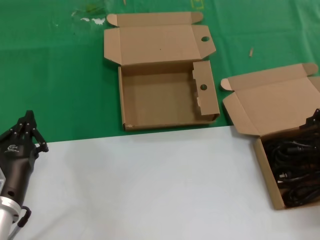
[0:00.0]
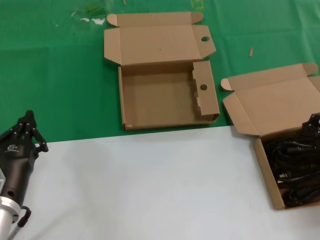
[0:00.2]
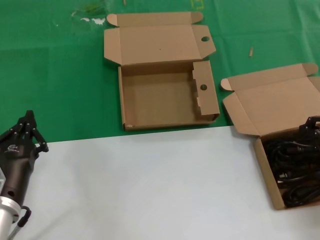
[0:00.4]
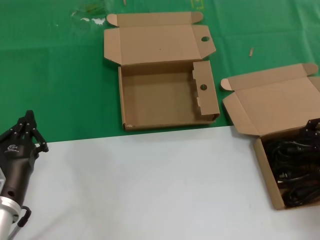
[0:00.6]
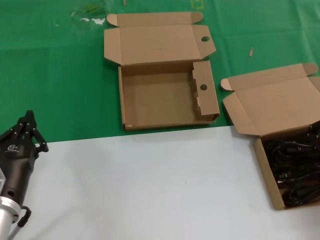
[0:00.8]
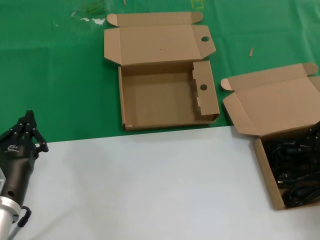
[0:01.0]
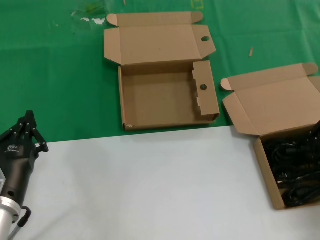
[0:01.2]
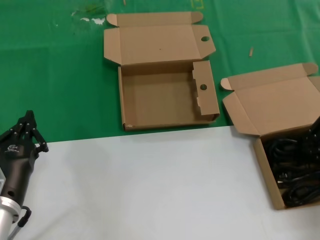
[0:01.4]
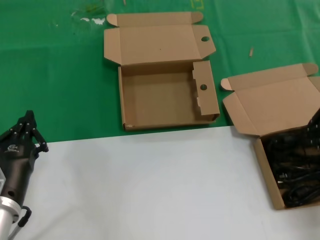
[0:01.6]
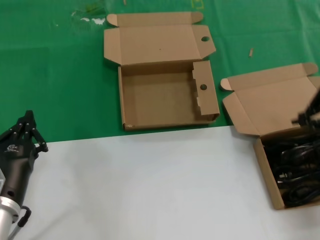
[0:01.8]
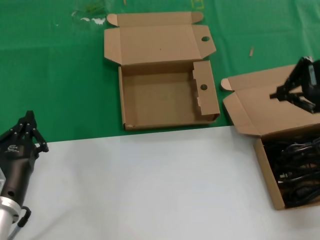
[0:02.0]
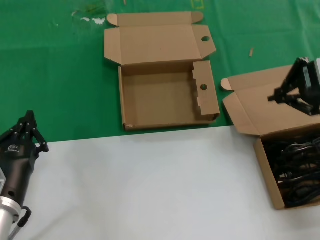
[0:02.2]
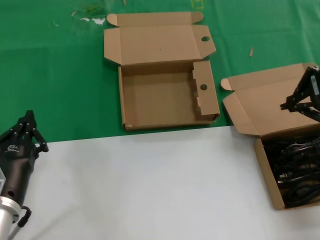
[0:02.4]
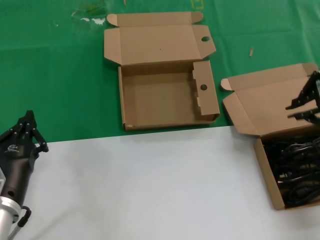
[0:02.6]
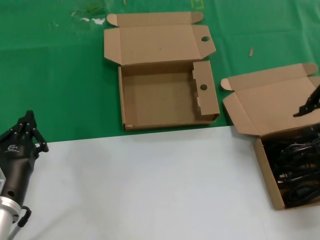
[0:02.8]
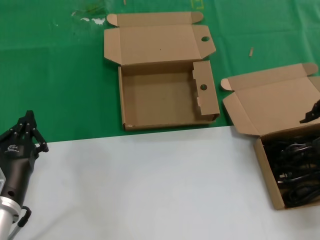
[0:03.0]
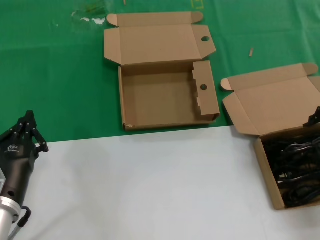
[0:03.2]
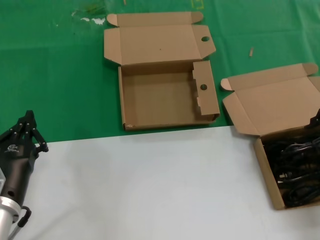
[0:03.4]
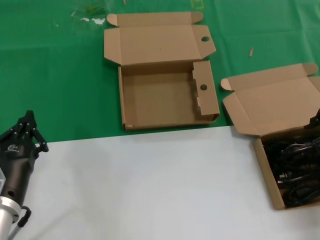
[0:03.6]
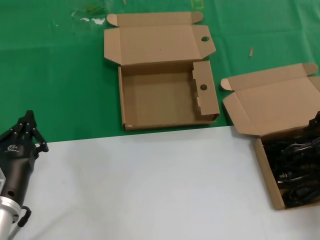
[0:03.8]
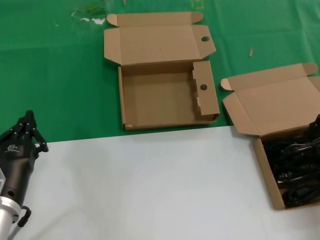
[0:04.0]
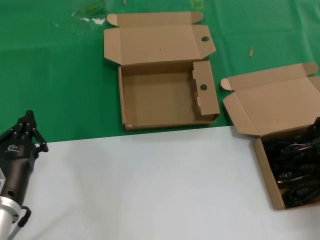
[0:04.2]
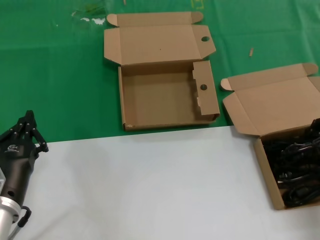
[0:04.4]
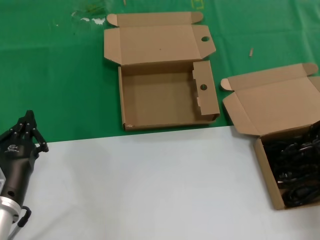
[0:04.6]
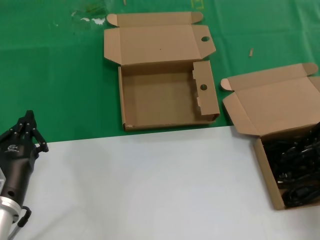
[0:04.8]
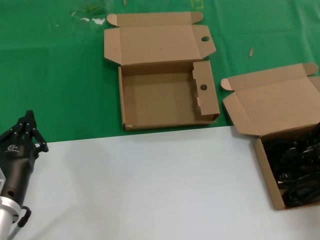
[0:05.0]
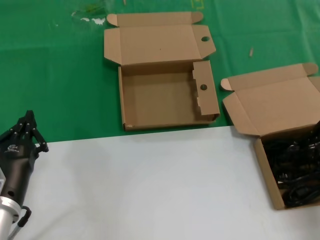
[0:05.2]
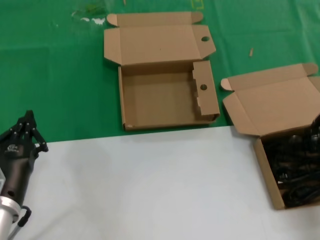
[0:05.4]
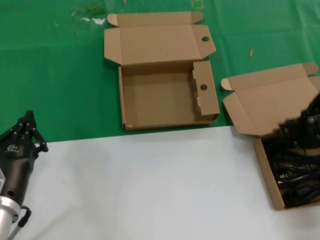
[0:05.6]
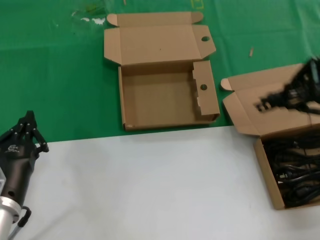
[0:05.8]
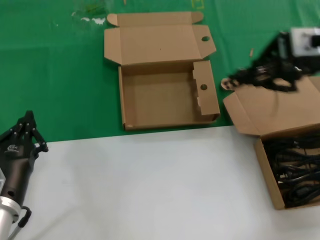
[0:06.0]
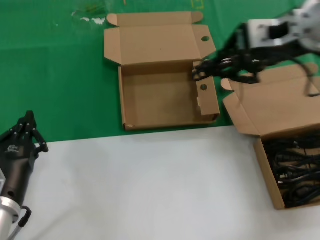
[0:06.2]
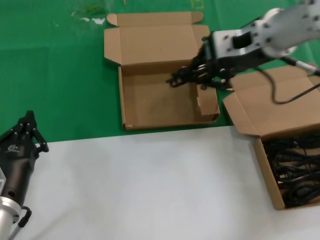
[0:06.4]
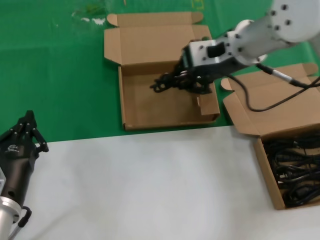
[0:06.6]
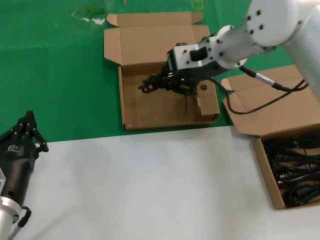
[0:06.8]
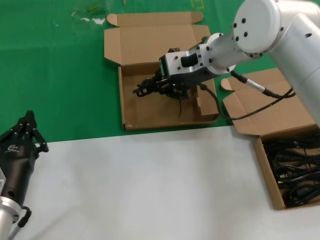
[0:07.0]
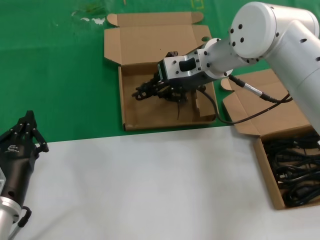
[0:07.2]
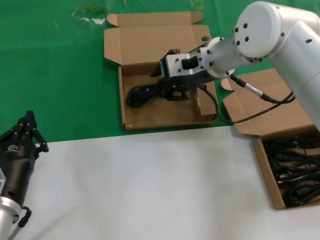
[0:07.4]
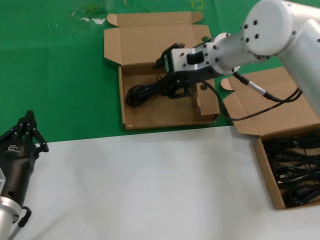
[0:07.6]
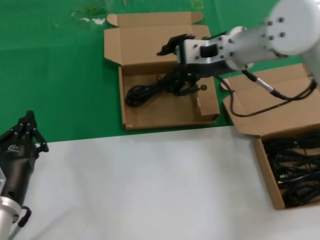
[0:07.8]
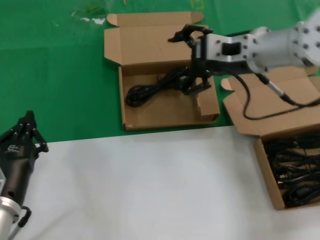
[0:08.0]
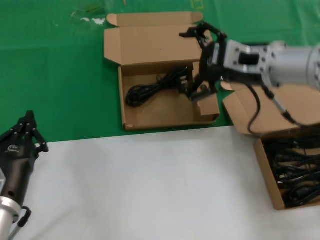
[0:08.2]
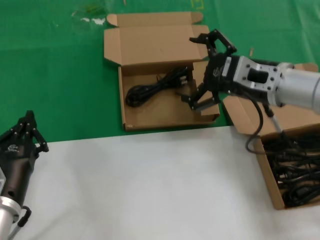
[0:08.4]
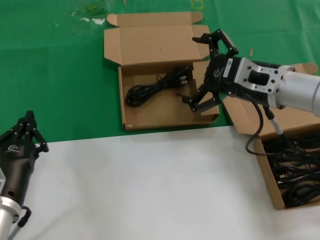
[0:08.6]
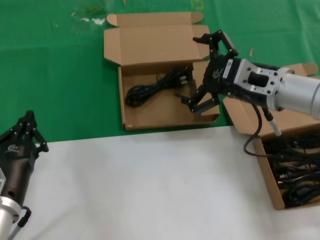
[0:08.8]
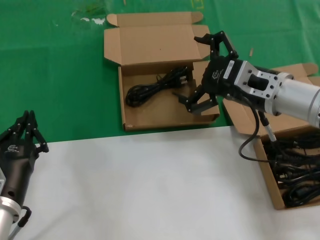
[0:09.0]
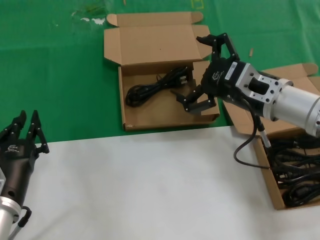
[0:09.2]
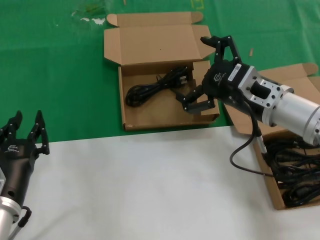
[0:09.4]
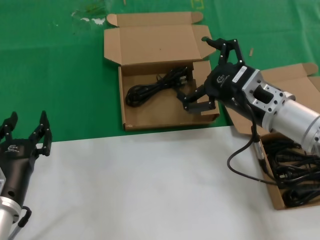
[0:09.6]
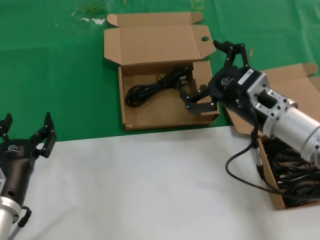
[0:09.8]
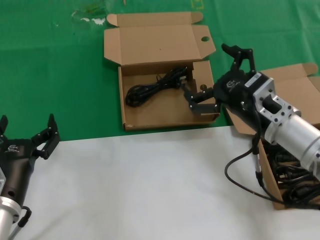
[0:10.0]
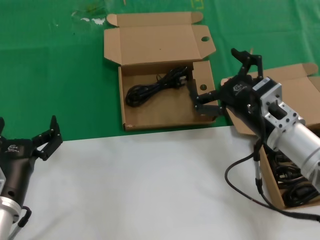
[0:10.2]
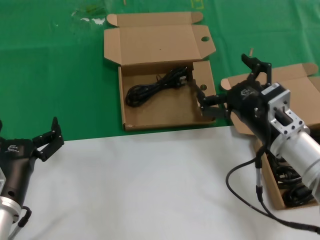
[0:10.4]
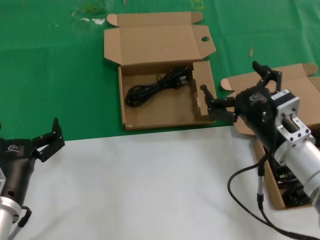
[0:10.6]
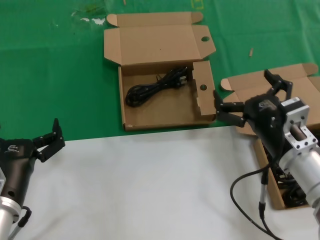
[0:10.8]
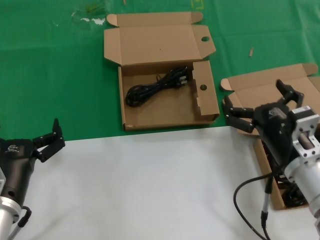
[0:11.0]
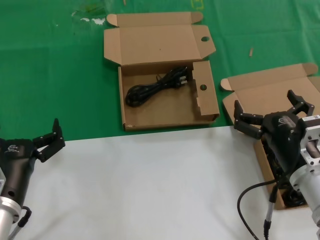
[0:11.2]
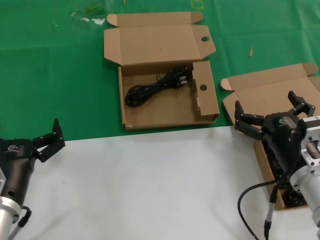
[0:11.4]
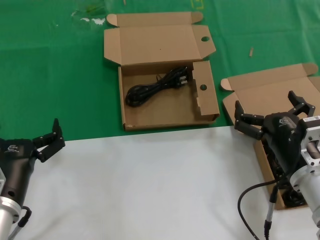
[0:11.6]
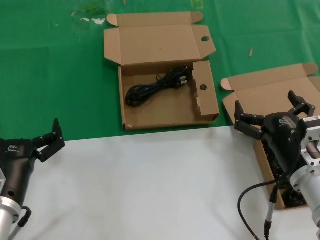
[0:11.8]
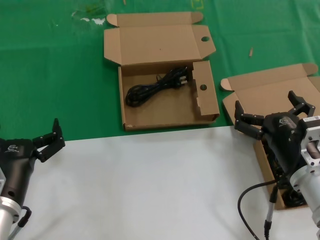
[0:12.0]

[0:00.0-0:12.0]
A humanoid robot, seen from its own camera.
Task of the whole recording: take the parts from the box containing them and put them into an empty box.
Step, 0:00.0 to 0:04.6: Grasp the data cable.
Step, 0:04.8 to 0:07.8: Place the data cable in the another box.
0:01.6 to 0:03.0: The right hand is displaced upward by some 5 cm.
0:03.0 to 0:04.4: The right hand travels downward by approximately 10 cm.
0:04.4 to 0:06.0: The right hand goes approximately 15 cm upward and to the left.
0:06.0 to 0:07.6: The right hand shifts approximately 20 cm to the left, forward and downward.
0:07.6 to 0:09.0: The right hand shifts about 15 cm backward, to the right and downward.
0:09.0 to 0:10.4: The right hand is displaced downward and backward by about 10 cm.
0:10.4 to 0:12.0: The right hand travels backward and downward by approximately 5 cm.

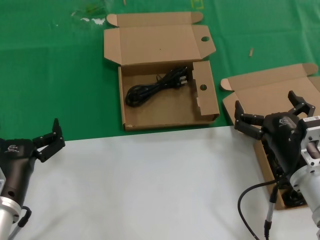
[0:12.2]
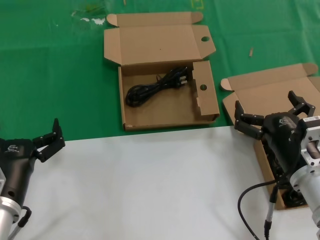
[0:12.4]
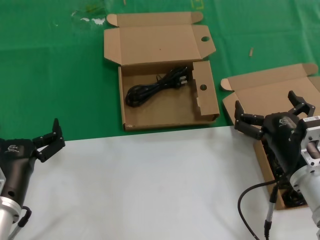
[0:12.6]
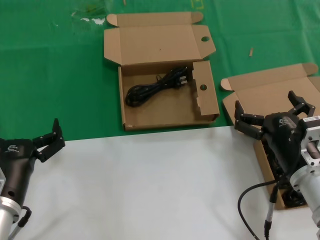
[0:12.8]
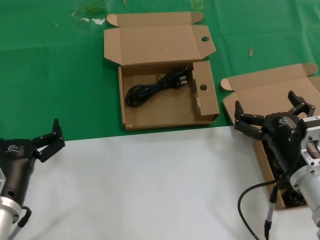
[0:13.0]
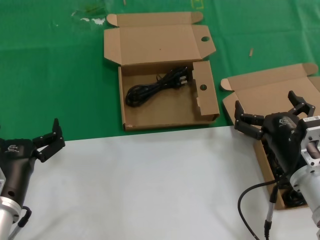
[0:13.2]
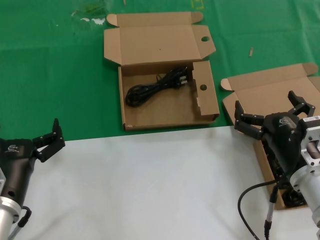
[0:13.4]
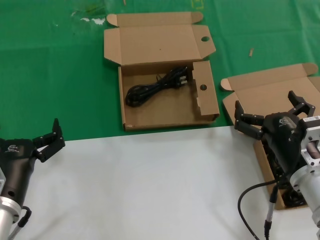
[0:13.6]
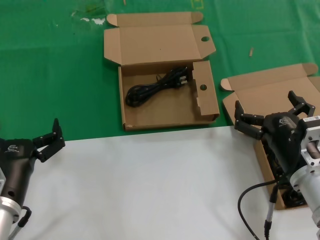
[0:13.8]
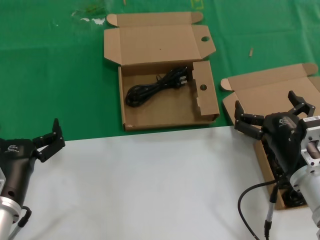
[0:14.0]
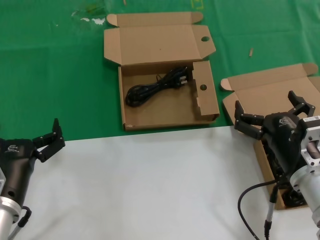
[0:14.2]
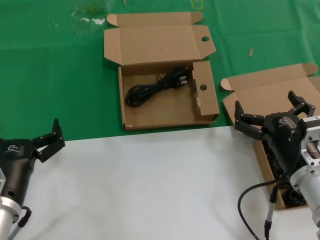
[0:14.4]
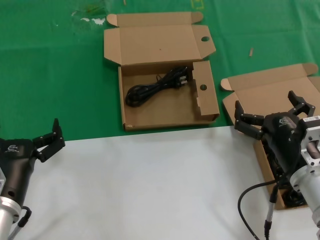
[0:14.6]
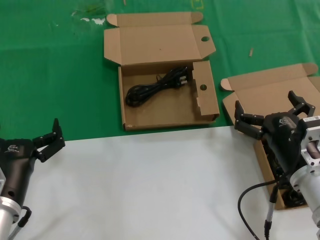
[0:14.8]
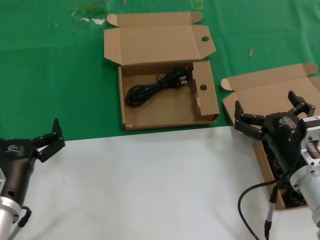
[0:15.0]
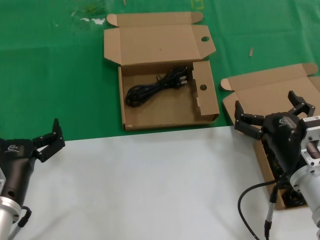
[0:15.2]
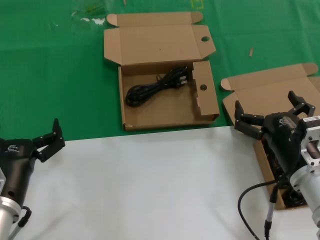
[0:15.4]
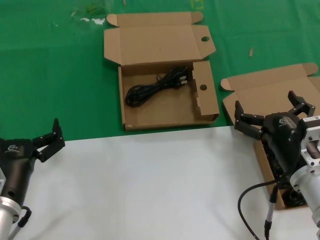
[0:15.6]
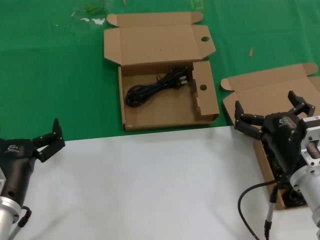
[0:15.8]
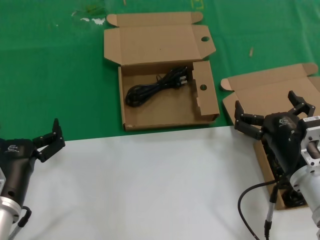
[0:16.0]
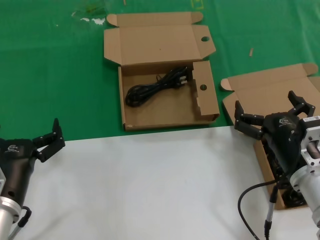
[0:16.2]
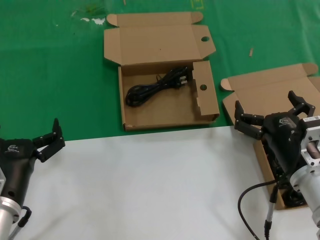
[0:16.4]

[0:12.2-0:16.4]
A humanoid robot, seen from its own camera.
Task of the whole recording: take the parts from the box containing them and put them into an empty box.
0:12.2 to 0:16.4: The two hands keep their place.

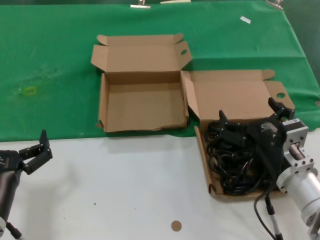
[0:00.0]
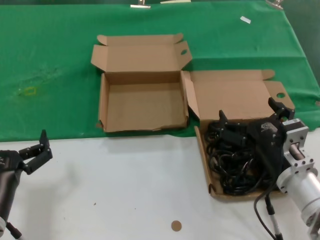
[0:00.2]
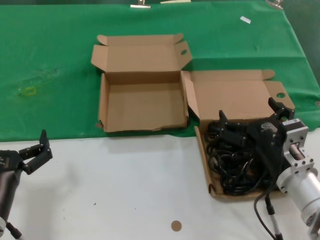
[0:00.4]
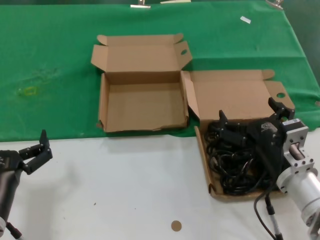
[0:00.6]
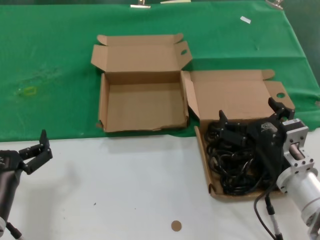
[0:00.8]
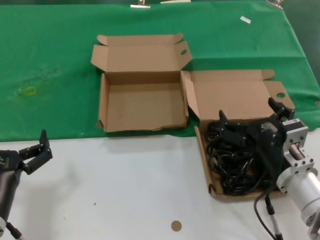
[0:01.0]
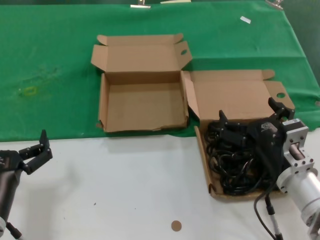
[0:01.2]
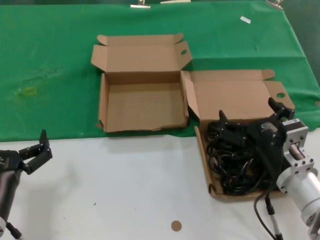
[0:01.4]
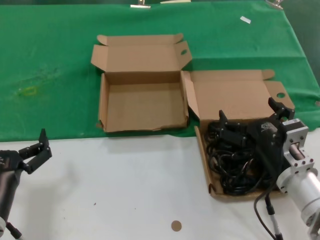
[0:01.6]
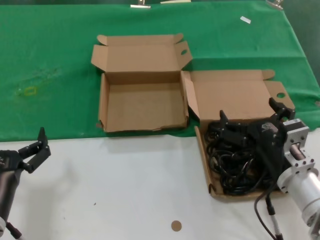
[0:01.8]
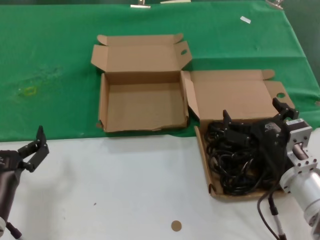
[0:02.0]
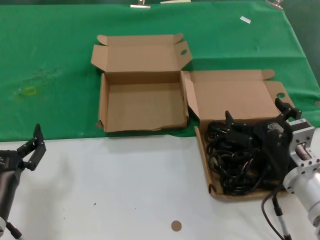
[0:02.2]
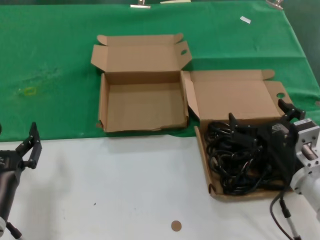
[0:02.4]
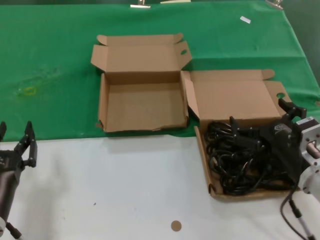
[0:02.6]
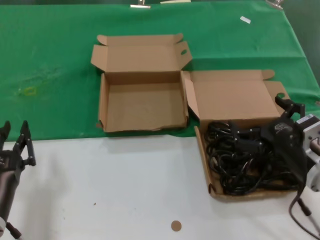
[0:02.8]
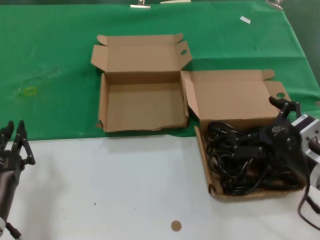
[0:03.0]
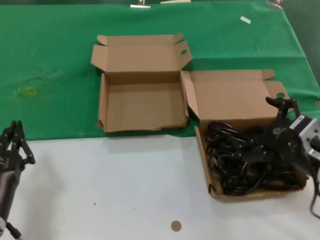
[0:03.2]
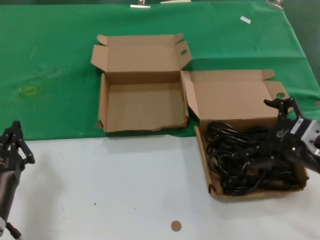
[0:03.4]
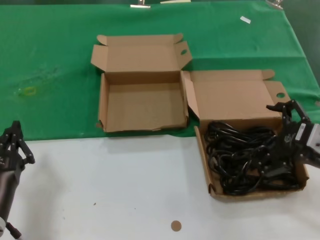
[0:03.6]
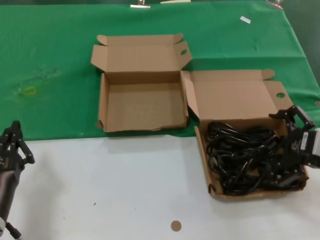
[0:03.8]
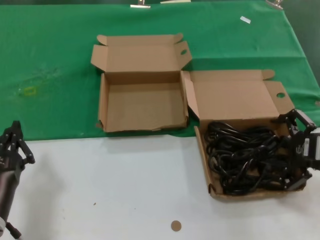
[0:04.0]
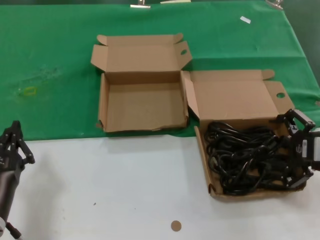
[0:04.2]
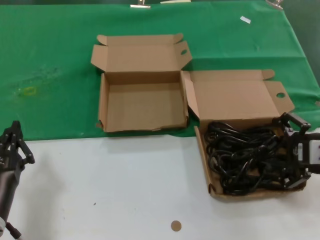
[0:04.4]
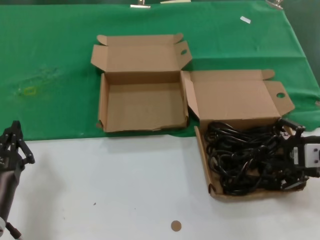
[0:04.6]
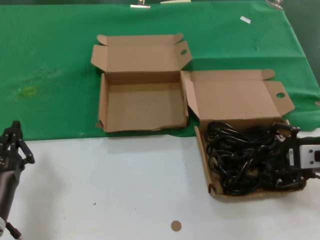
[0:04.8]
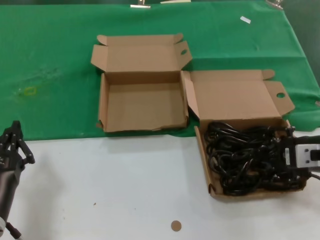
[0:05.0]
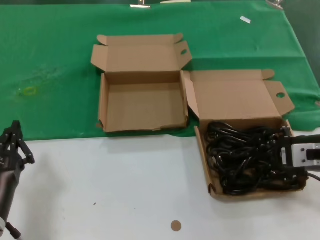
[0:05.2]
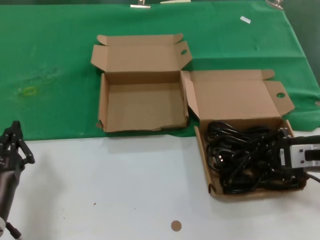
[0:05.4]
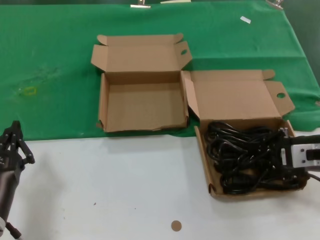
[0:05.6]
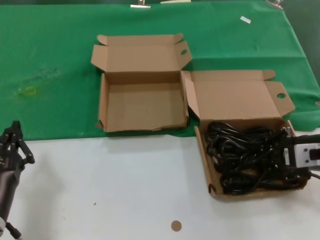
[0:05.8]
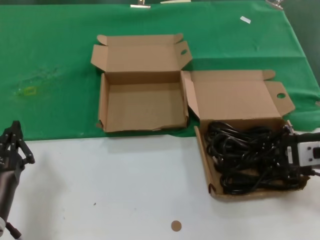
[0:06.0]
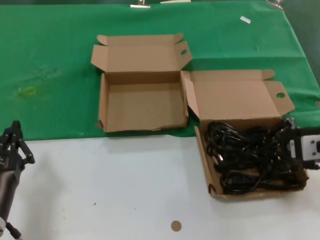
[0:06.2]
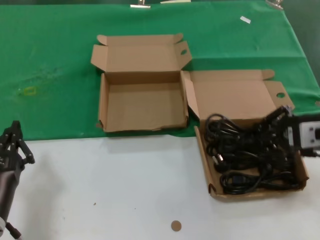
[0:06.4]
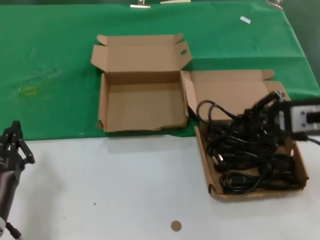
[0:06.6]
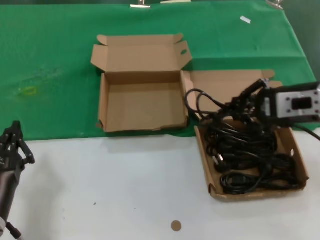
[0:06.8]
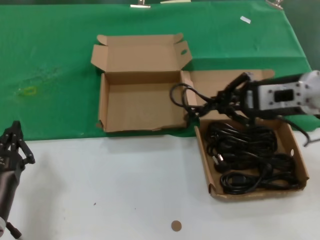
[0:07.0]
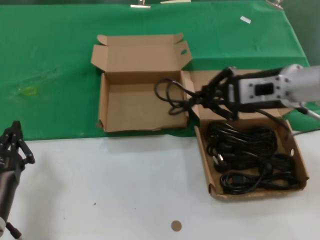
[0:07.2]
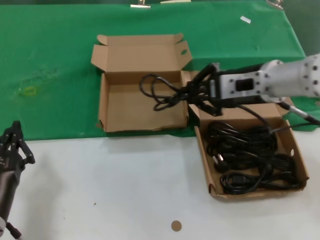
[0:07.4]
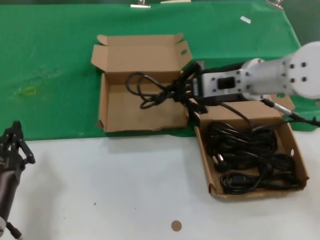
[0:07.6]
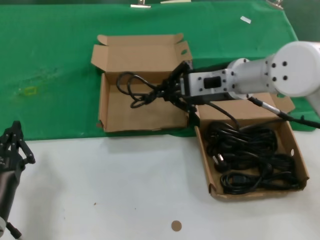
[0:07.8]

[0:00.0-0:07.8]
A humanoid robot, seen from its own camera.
Task of the whole recording: take the parts from the box containing them and put them into an empty box.
Step, 0:00.0 to 0:05.4: Grasp the data cable.
0:00.0 to 0:01.6: The two hands keep their place.
0:01.6 to 0:03.2: The right hand heads to the right and upward, covering roughly 10 cm.
0:03.2 to 0:04.6: The right hand moves to the right, about 5 cm.
0:04.6 to 0:06.2: There are only small adjustments of the hands.
0:06.2 to 0:07.8: The right hand goes some 20 cm to the left and forward.
